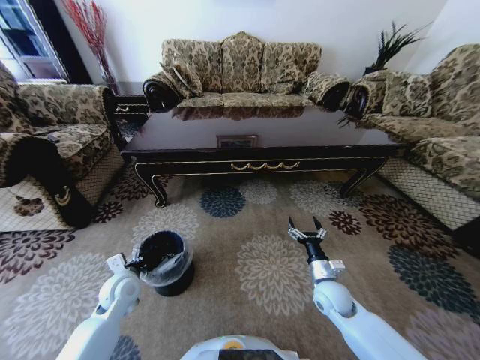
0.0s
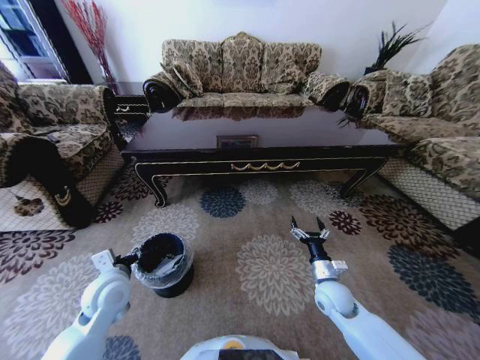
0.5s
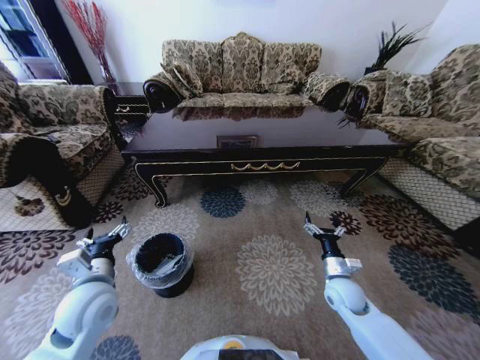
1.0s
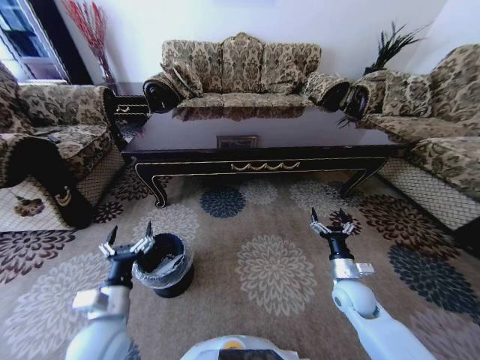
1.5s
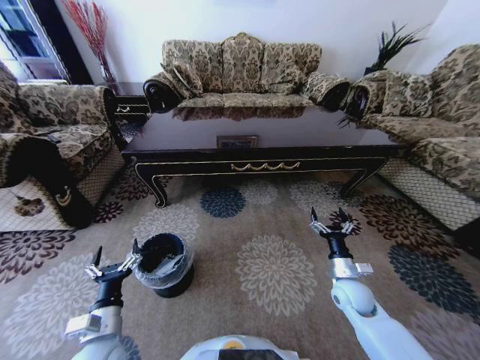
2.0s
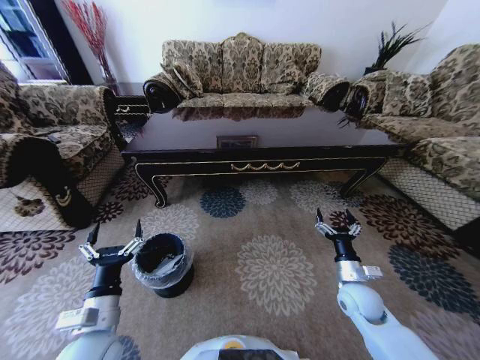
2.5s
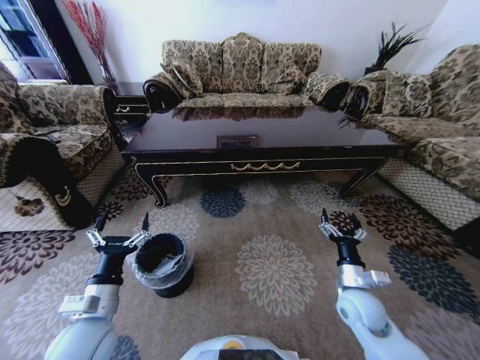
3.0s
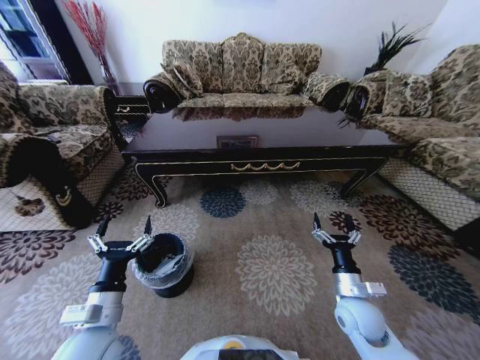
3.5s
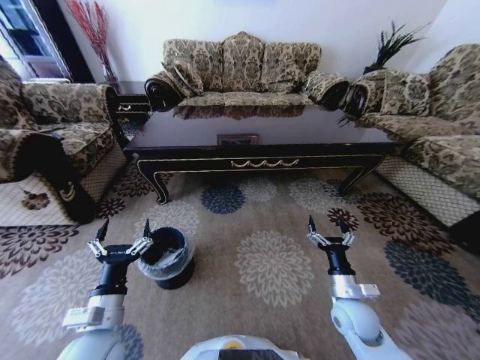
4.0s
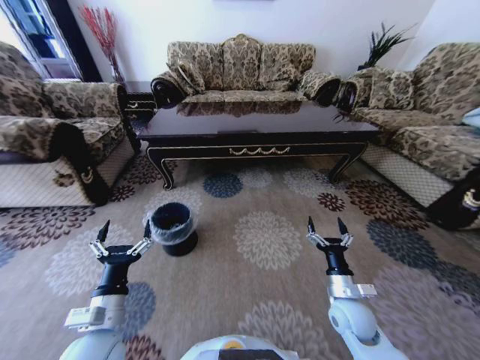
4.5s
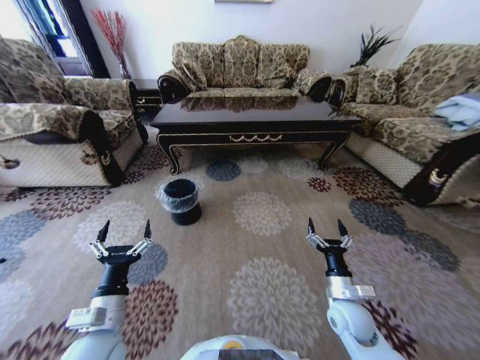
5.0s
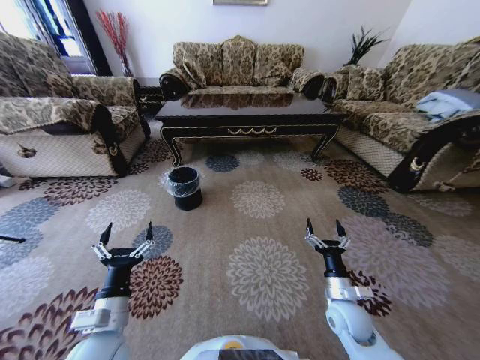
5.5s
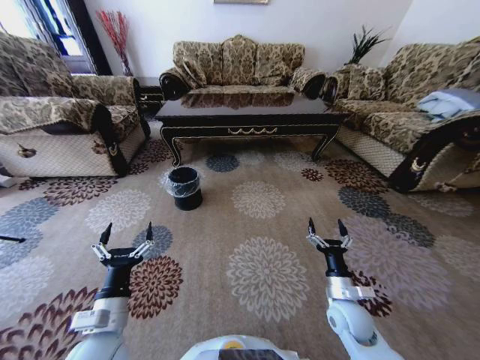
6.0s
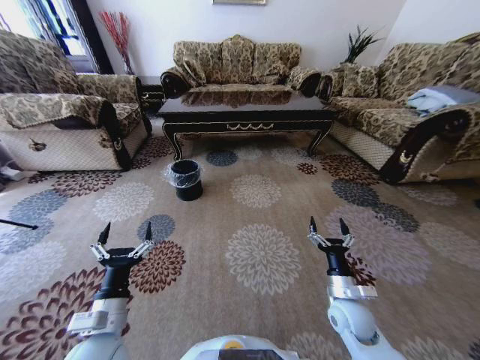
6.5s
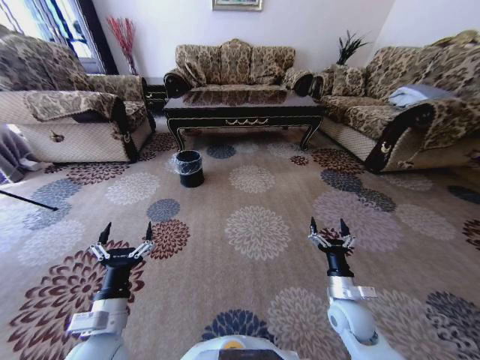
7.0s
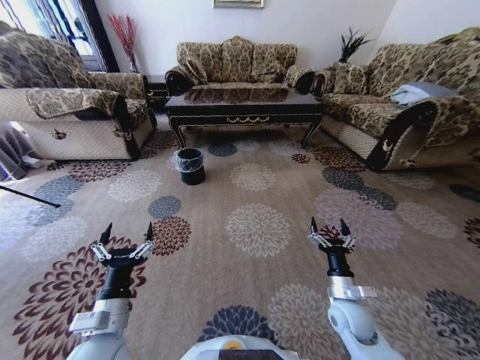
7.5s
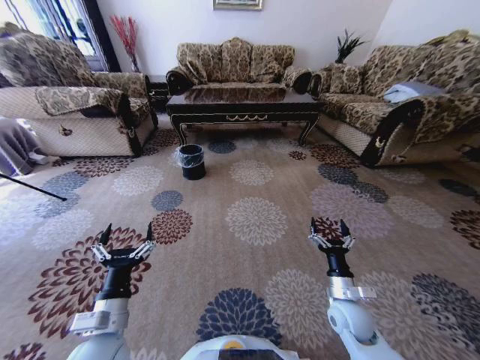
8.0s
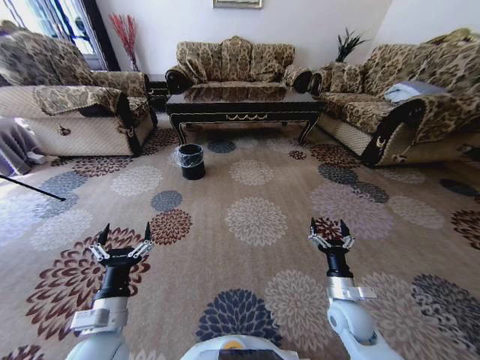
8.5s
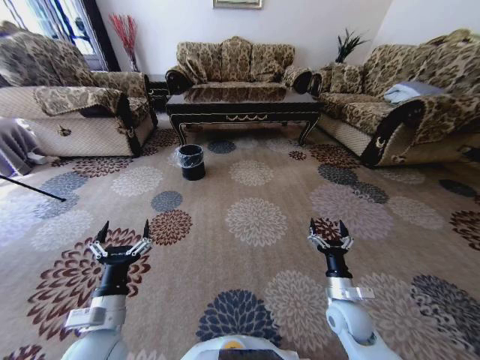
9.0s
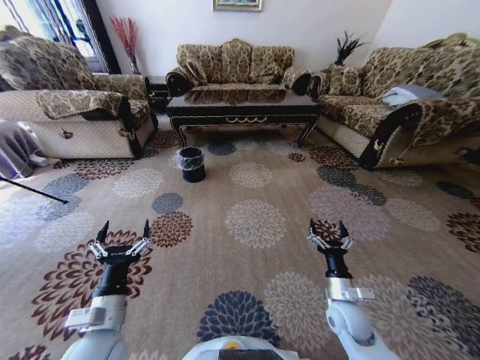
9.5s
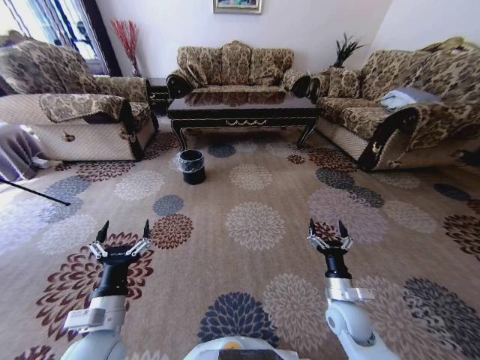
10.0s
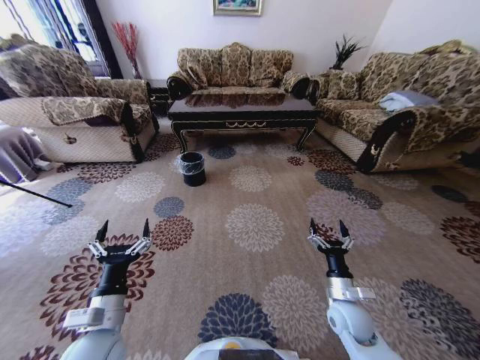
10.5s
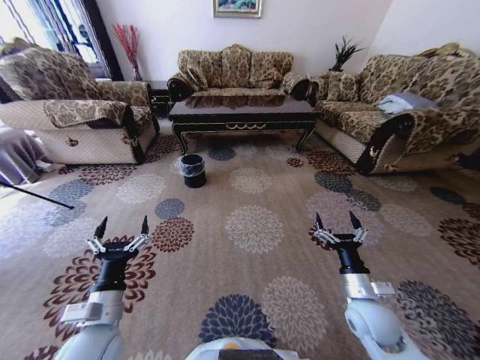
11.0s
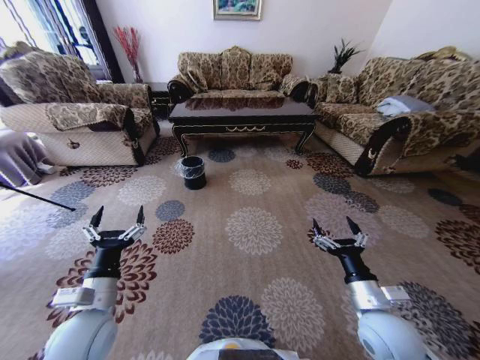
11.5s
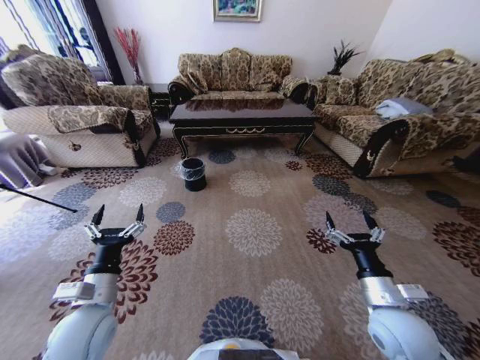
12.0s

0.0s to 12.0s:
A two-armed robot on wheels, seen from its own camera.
Task of the whole recording: Move to the front of the table and pick up the trash from the floor, then place it into the trash bin.
0.0s to 2.0s: The left gripper shifts about 15 cm backward, and opens up. Meanwhile the right gripper goes approximately 5 cm to the right.
2.0s to 4.0s: The right gripper travels backward by some 5 cm; the left gripper travels upward by approximately 5 cm.
10.0s to 12.0s: The left gripper moves some 5 cm. Meanwhile the right gripper travels upward by roughly 10 cm.

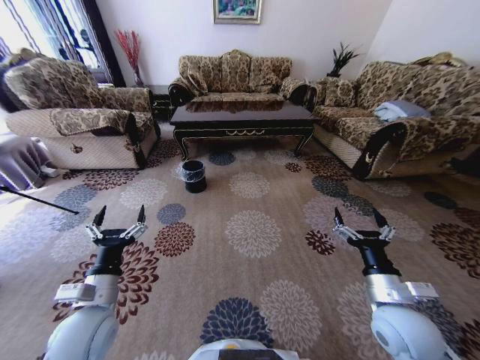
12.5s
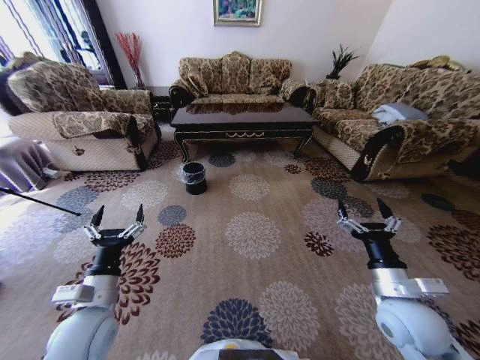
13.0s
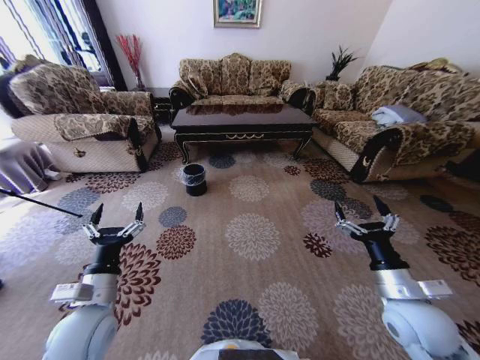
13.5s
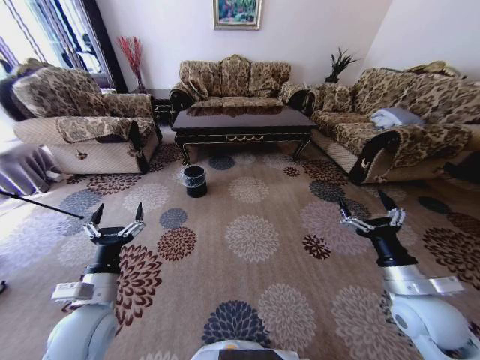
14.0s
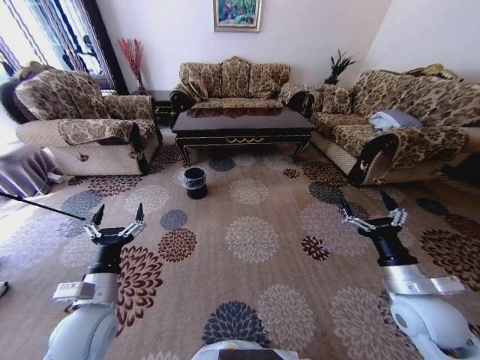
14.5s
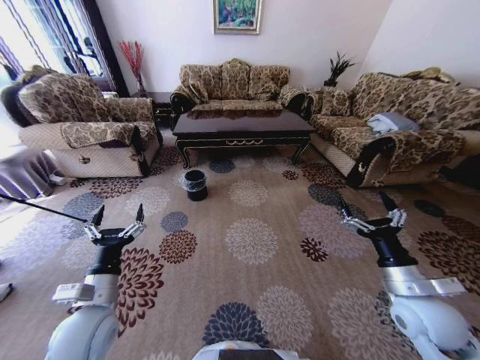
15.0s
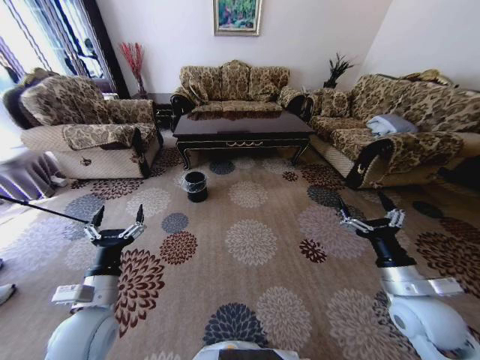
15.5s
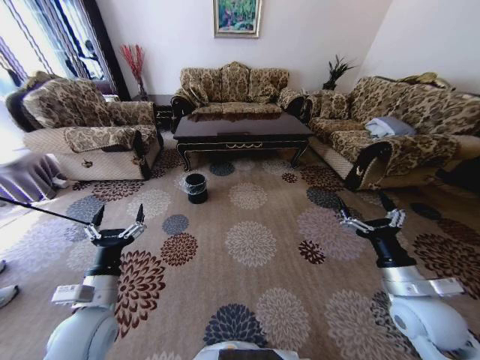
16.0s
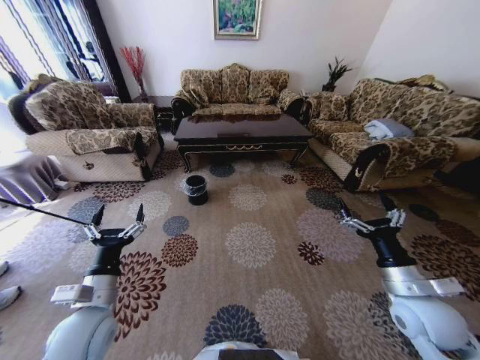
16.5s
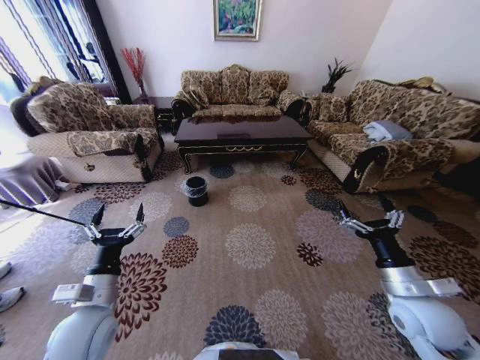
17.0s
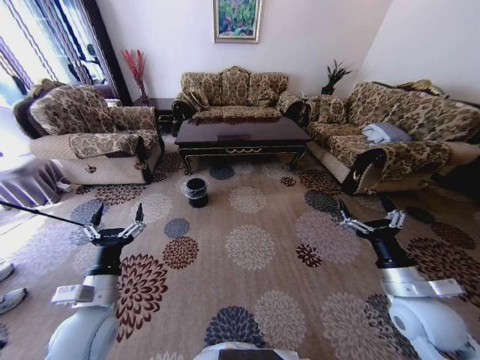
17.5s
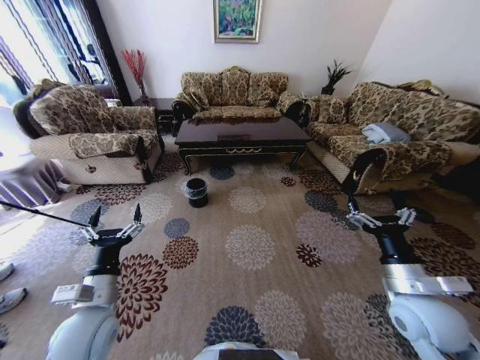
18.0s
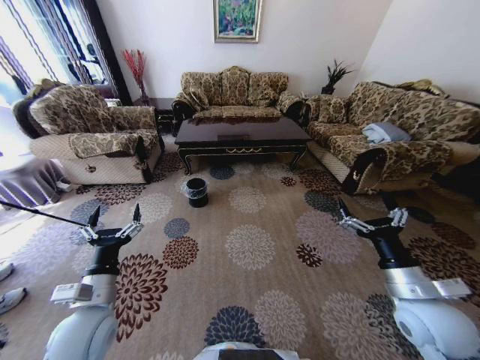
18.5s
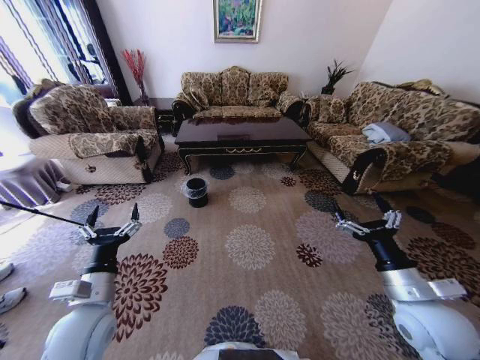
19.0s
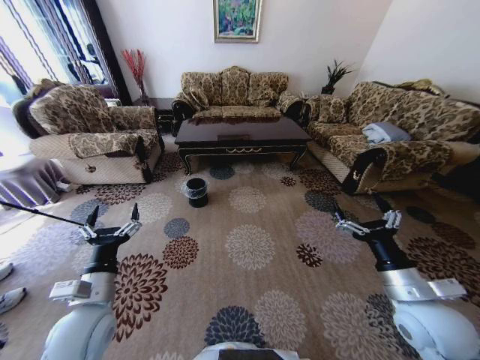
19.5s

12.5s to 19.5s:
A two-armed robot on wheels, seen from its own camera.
Task of the whole recording: Move to the front of the table and pick up the trash from the floor, then place it into the trash bin.
12.5s to 14.5s: The right gripper goes approximately 5 cm to the right.
17.5s to 19.5s: The grippers move only a little.

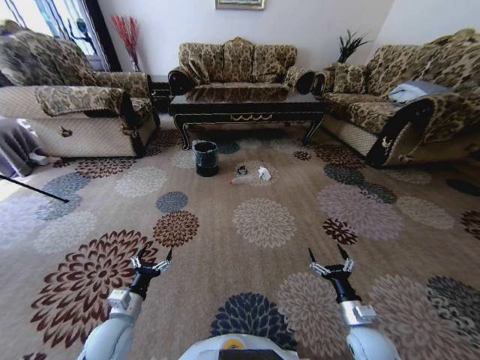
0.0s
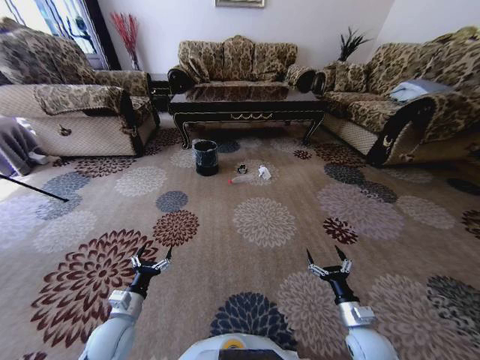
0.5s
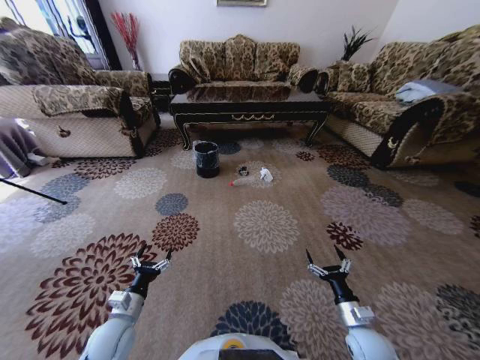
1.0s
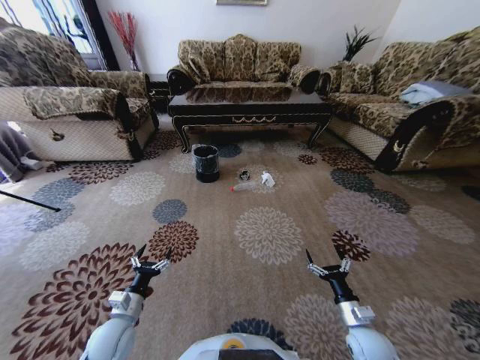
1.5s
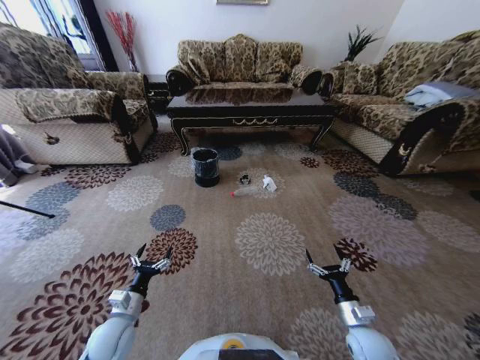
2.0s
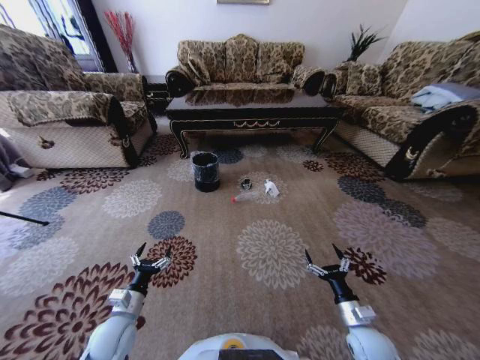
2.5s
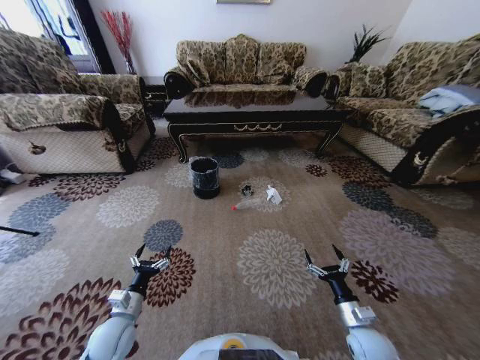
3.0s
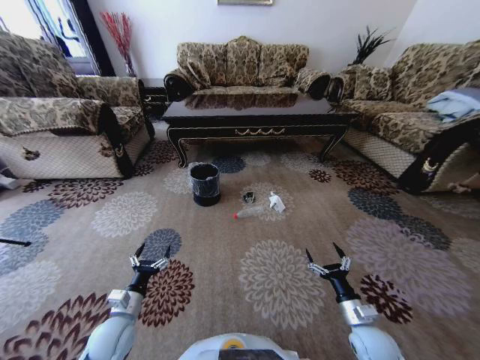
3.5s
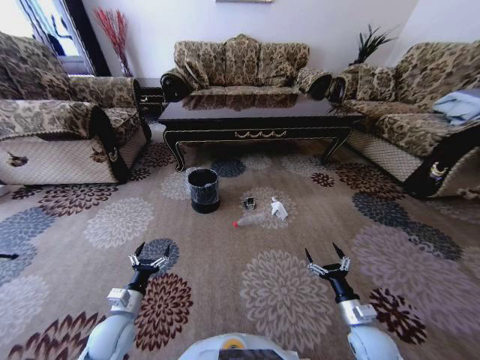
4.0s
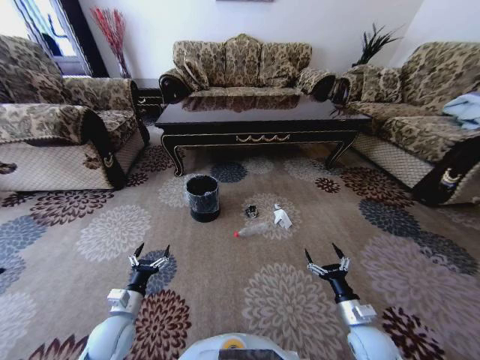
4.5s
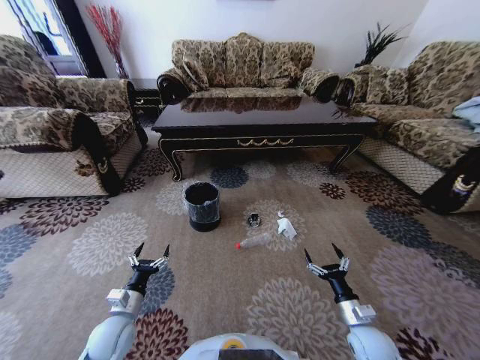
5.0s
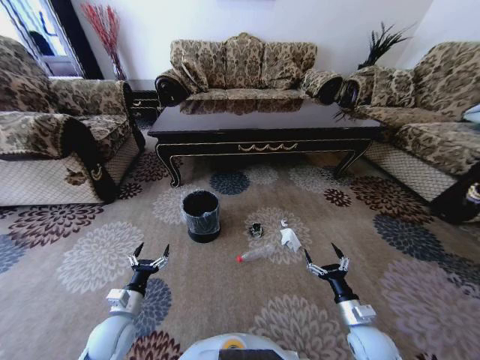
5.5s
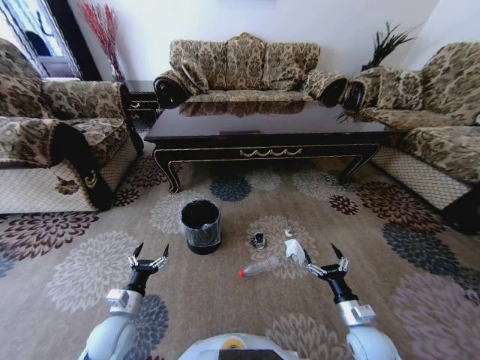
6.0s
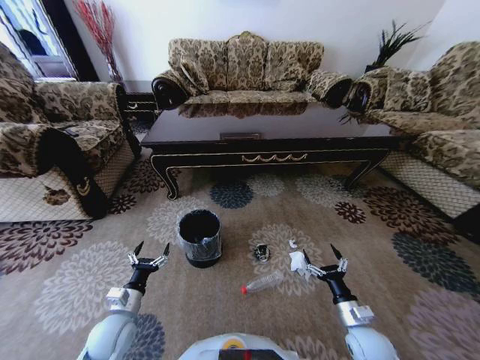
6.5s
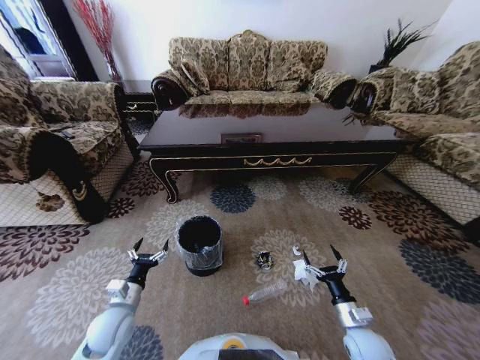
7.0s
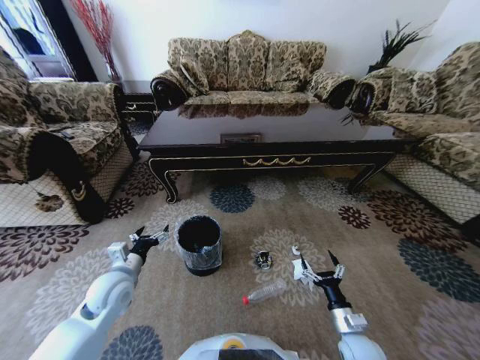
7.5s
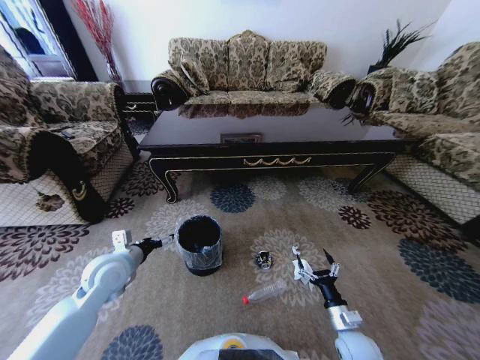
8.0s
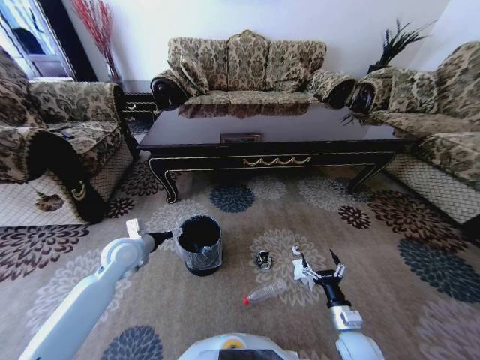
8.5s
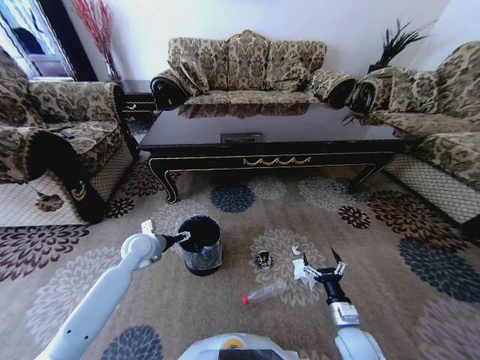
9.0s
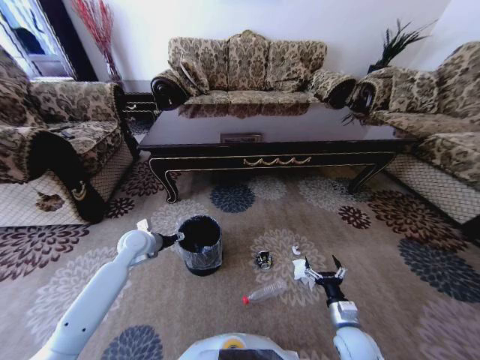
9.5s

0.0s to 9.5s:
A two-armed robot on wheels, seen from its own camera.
Task of the whole recording: Move to the front of the table and pick up the trash from the floor, then place it into the trash bin.
5.5s to 7.5s: The left gripper is displaced upward and forward by some 15 cm.
7.5s to 9.5s: The left gripper travels forward by about 15 cm.
